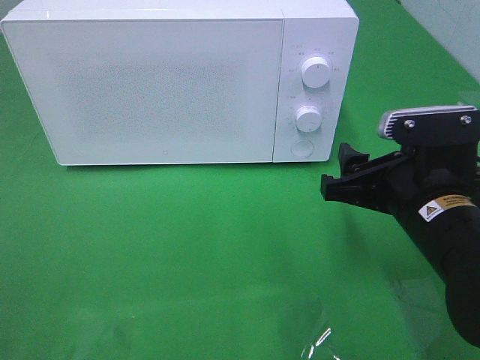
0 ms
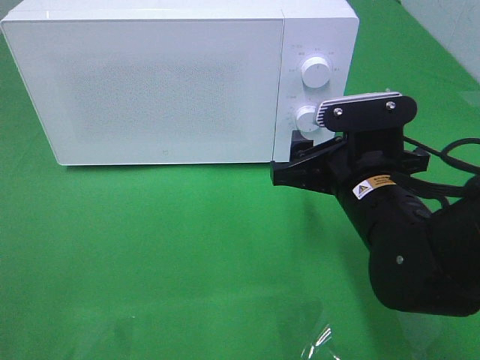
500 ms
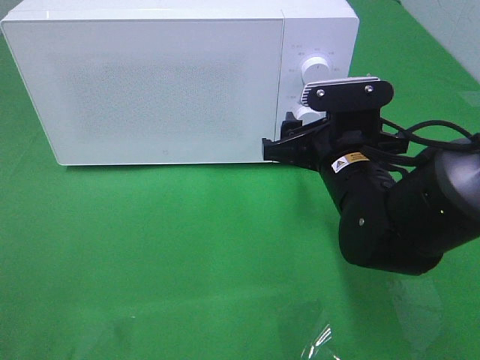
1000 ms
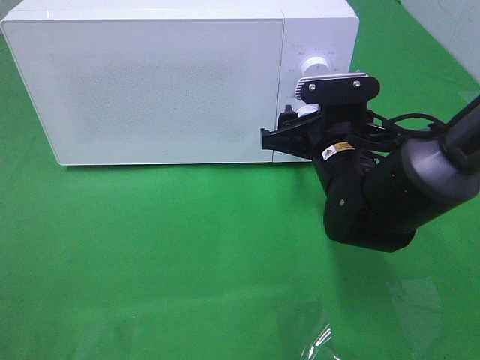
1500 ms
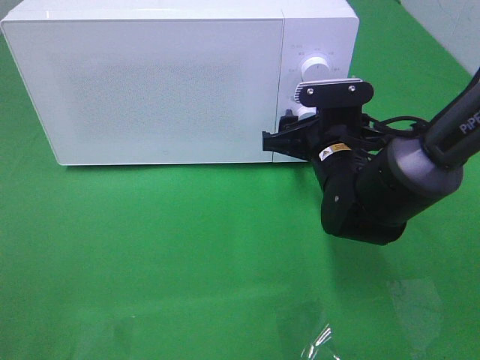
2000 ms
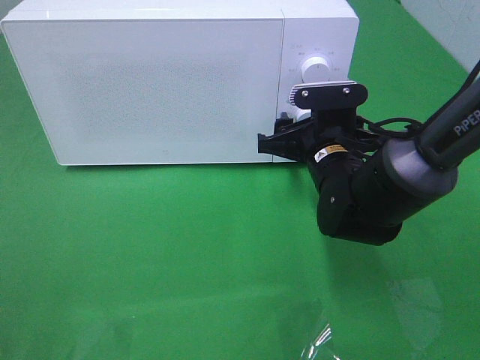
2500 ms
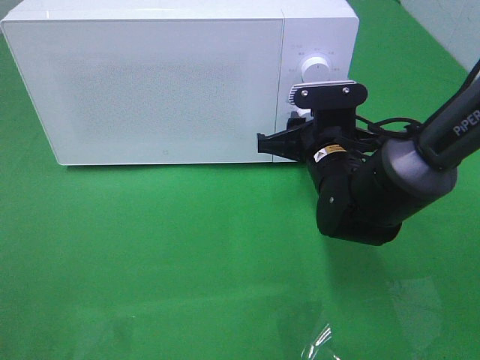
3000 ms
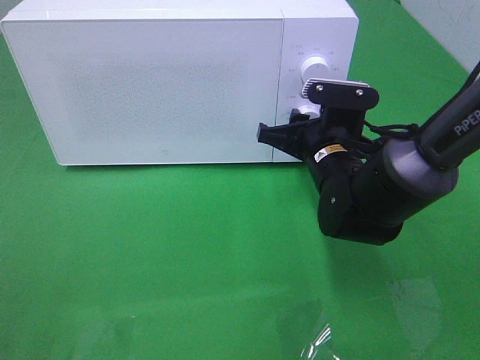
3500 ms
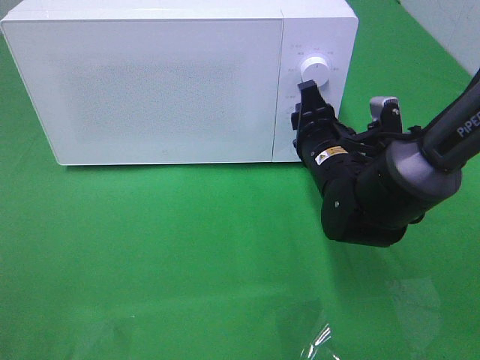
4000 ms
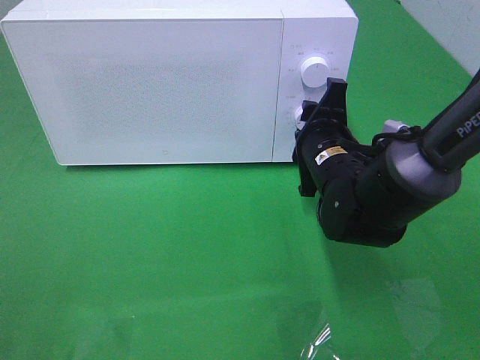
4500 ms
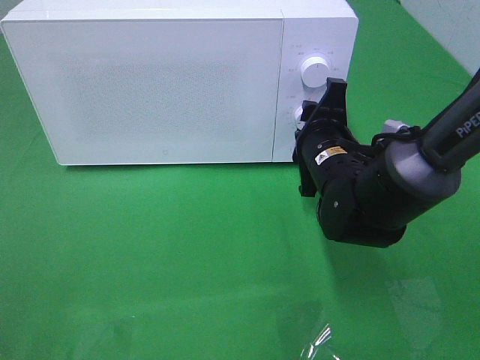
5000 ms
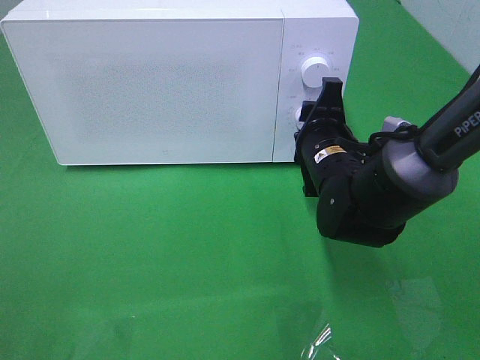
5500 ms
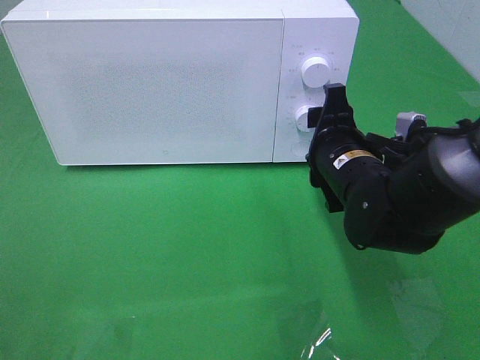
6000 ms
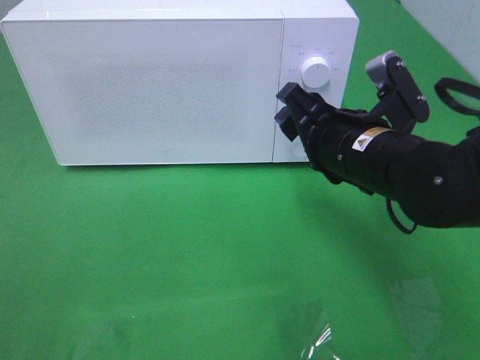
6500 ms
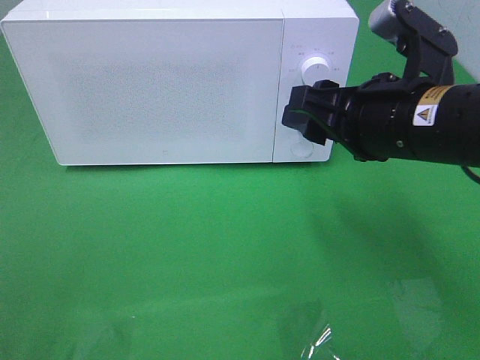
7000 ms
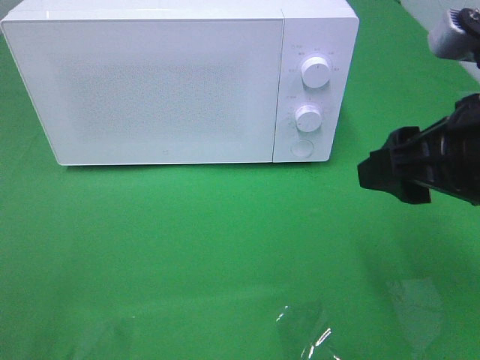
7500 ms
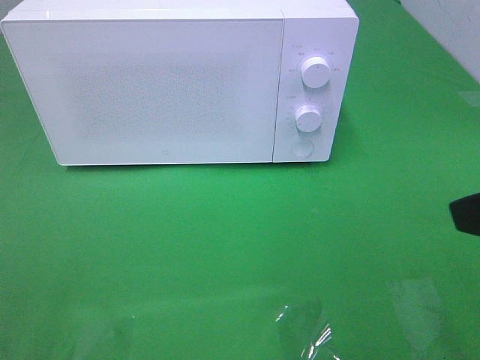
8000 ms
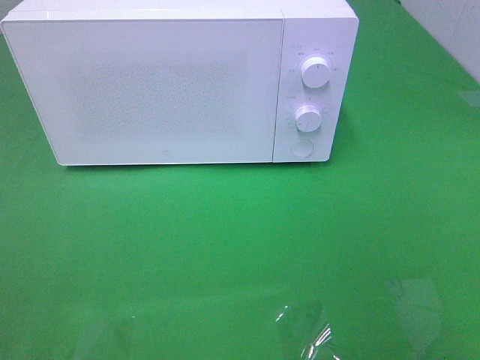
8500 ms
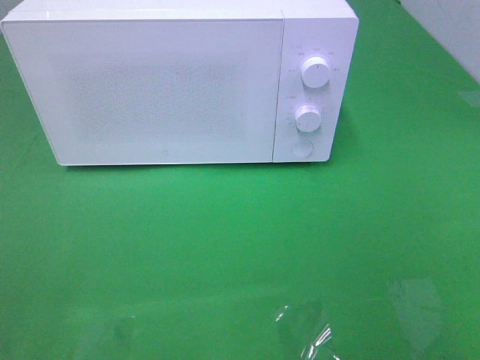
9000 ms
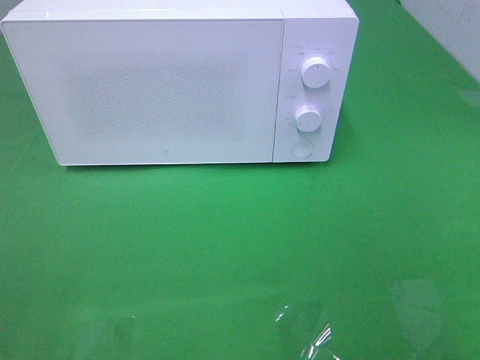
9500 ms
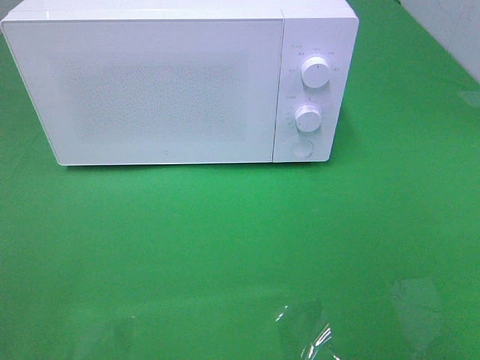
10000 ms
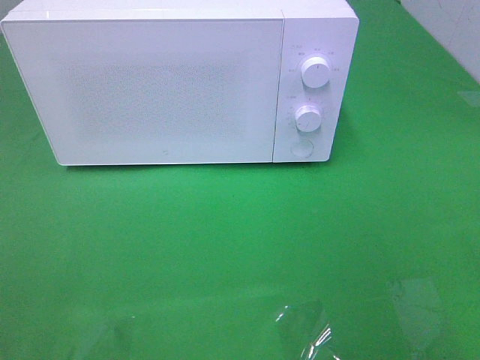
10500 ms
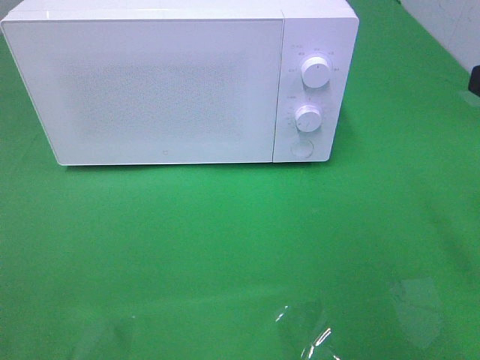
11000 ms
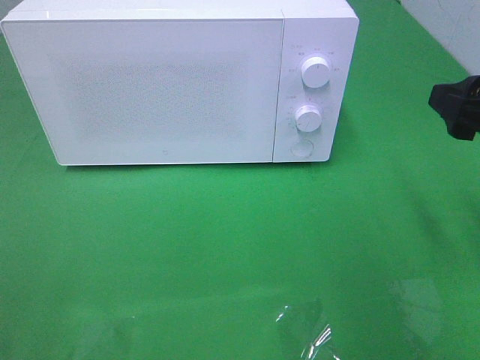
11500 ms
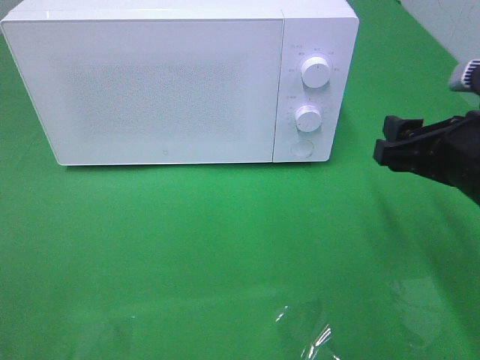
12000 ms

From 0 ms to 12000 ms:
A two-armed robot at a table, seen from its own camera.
Task of the whole recording: Heat the burger.
Step, from 0 ms to 6000 ms: Right hand: twist timer button.
From 0 ms to 2000 ms: The right gripper moves forward and to the left, roughly 15 cm.
From 6000 ms to 8000 ms: The right gripper goes some 25 cm backward, upward and to the right.
From 10000 ms to 12000 ms: The right gripper is displaced forward and downward by about 25 cm.

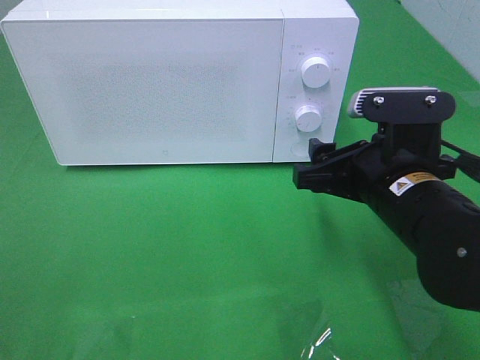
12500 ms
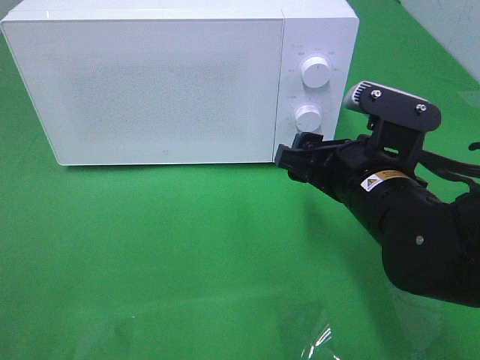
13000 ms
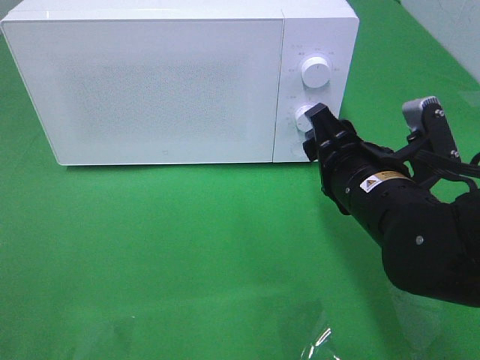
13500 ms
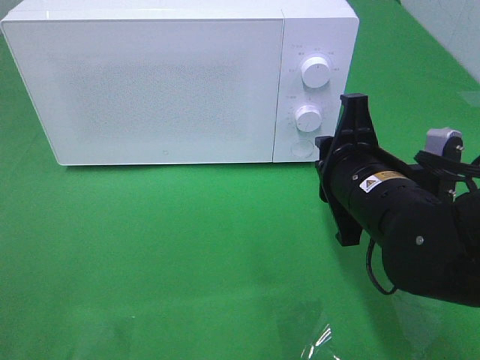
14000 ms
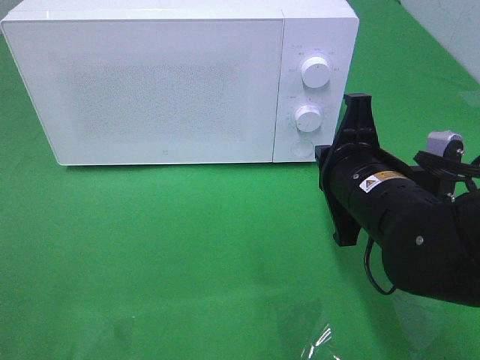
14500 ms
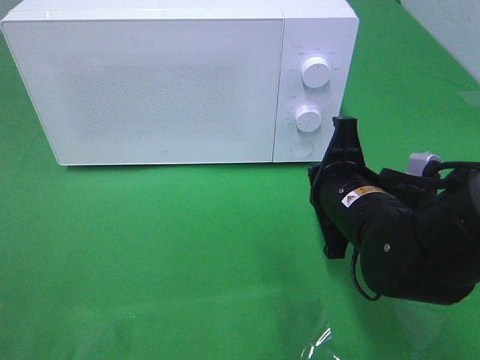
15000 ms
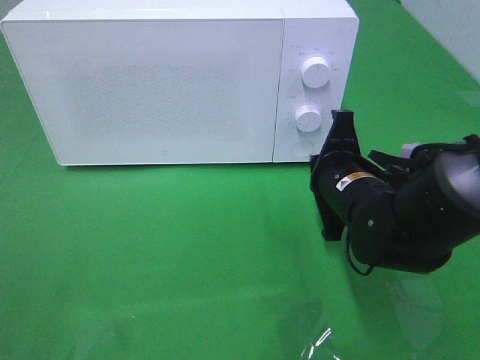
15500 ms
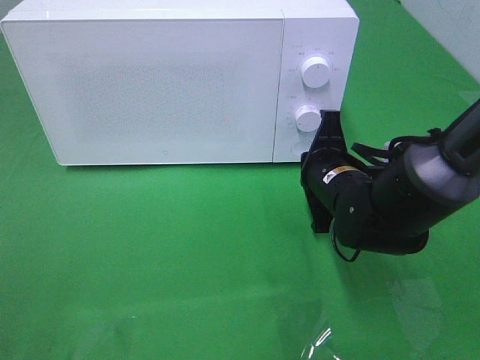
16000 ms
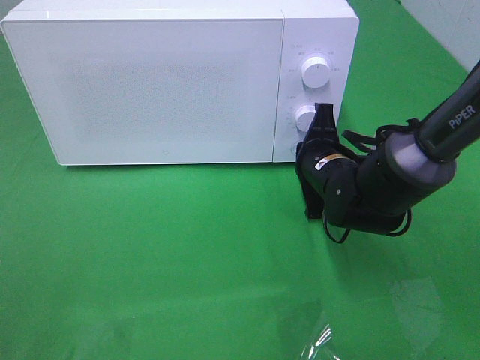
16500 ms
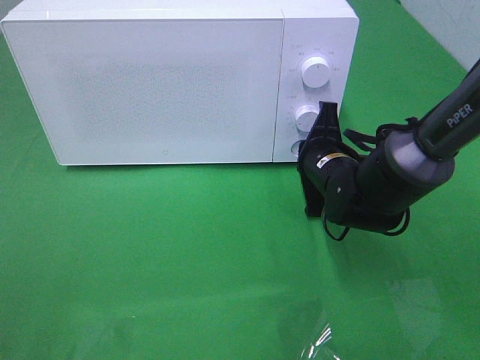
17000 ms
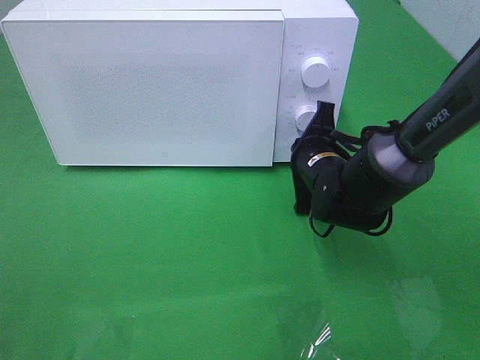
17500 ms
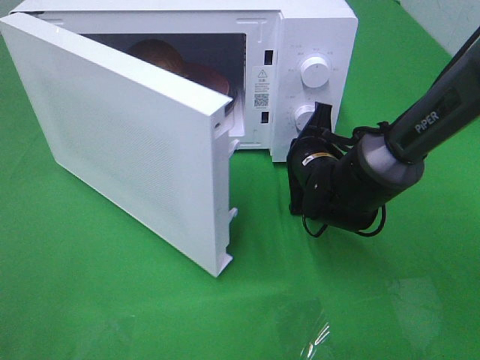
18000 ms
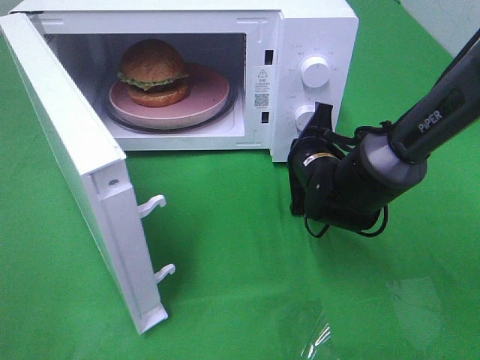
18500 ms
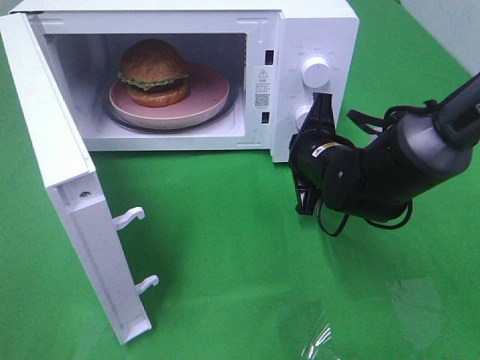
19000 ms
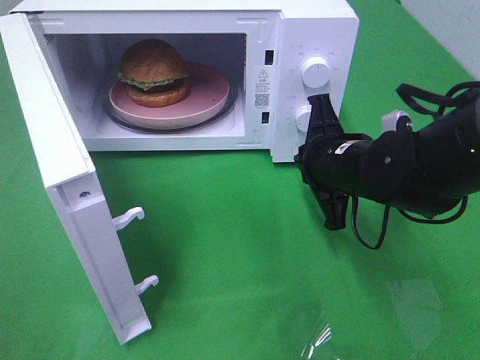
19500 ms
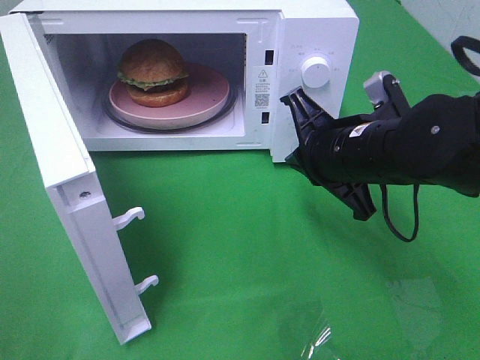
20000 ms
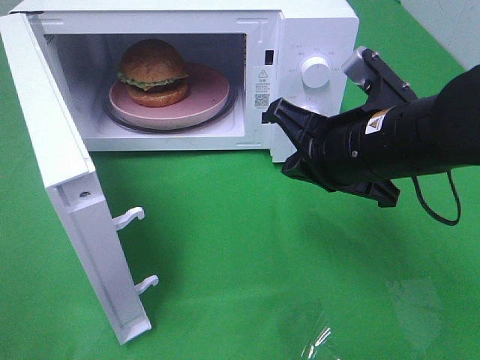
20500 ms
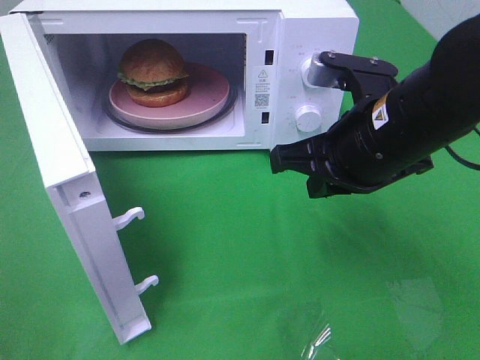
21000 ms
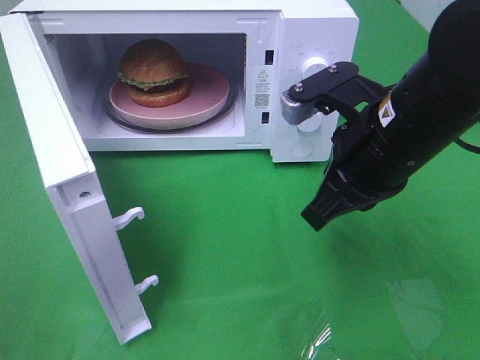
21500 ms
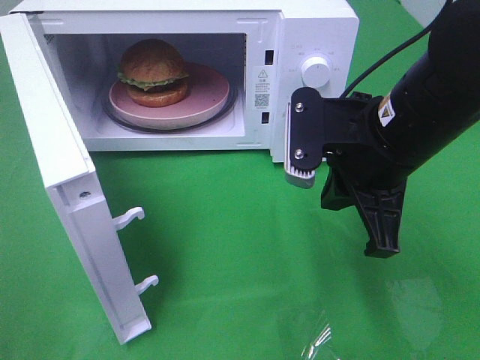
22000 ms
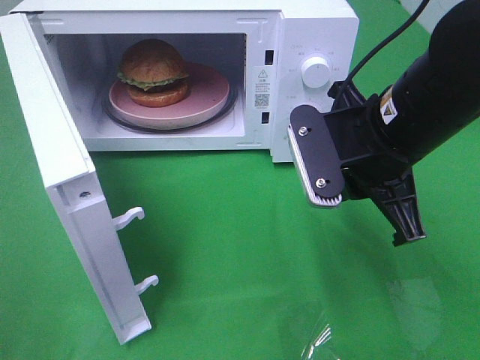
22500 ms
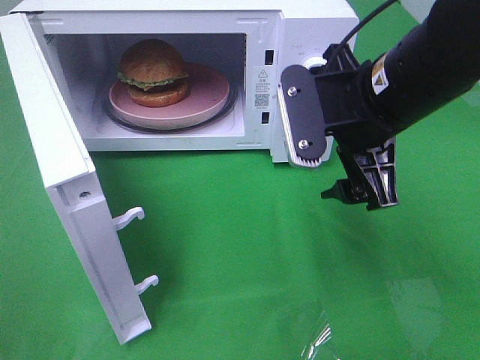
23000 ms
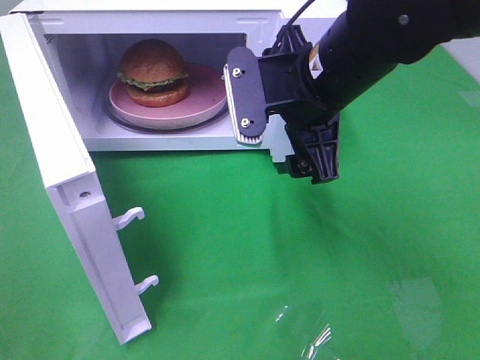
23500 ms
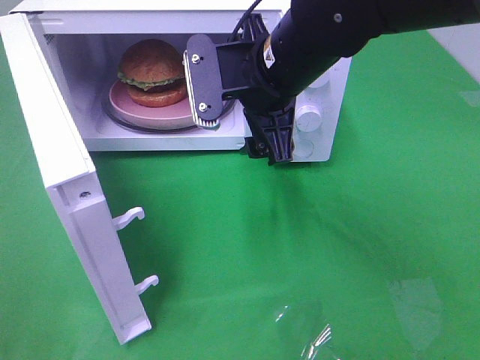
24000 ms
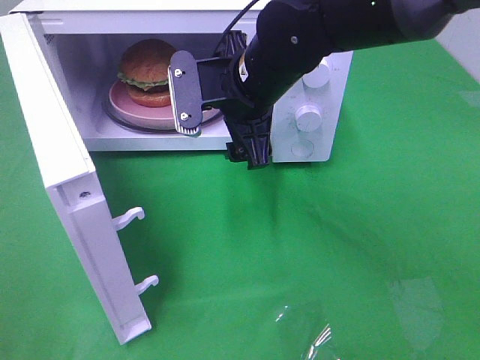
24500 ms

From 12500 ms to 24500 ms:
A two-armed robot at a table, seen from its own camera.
Task of the whole recording: Heat the burger.
Step, from 12500 ms to 19000 ms: Right hand: press the switch.
From 12500 ms to 14500 ms: The right gripper closes its fingers.
From 14500 ms to 16500 ms: The right gripper shifts roughly 15 cm forward and downward.
From 18500 ms to 20500 ms: The right gripper heads upward and backward, covering approximately 15 cm.
From 22500 ms to 24500 ms: The right gripper goes about 15 cm to the left and forward, and opens its fingers.

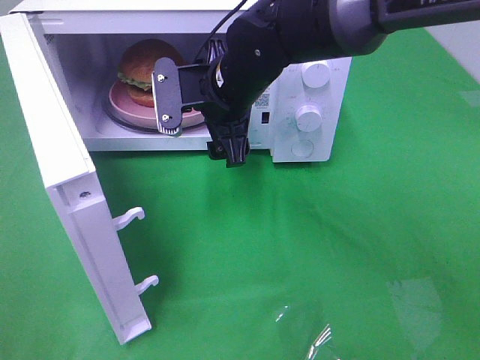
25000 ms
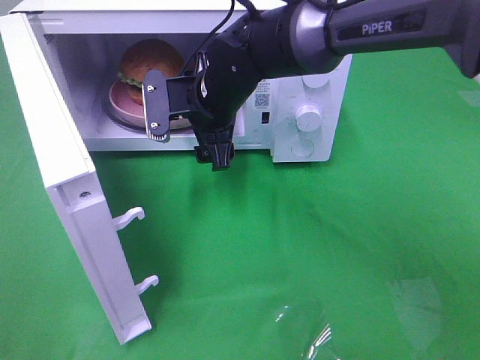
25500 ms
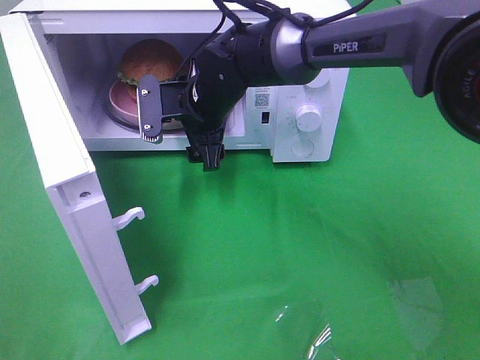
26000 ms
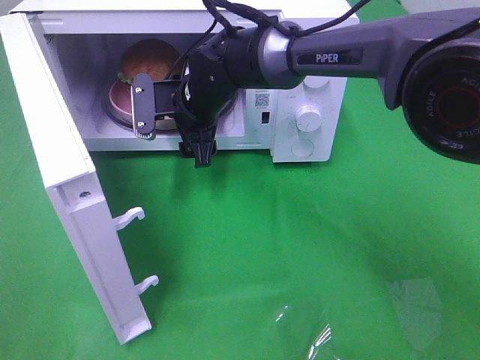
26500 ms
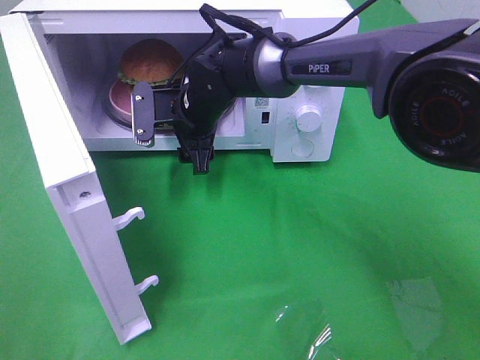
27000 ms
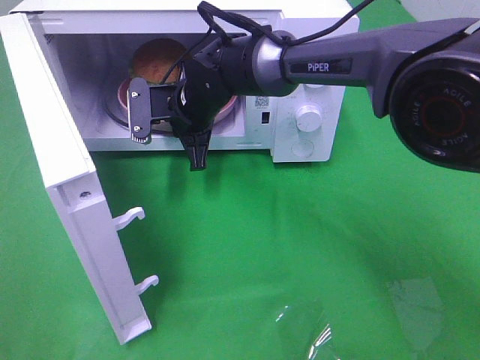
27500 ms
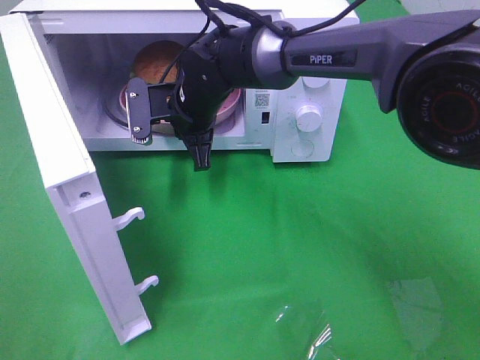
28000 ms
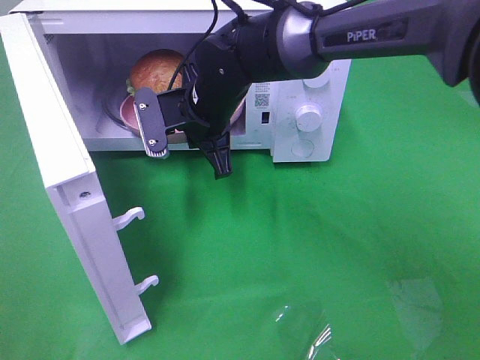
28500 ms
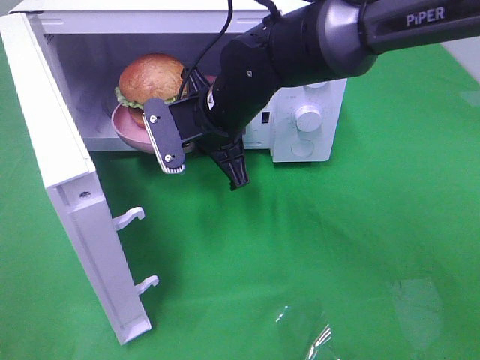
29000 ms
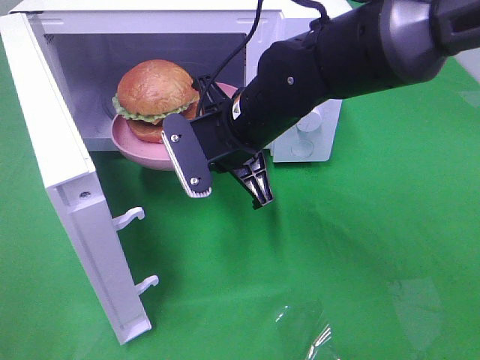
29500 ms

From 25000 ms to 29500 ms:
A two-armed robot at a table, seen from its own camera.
Task of the whole recording: Heat the burger.
Step, from 25000 ms to 27500 ms: Right hand: grab the plate with the hamburger.
From 25000 ms to 27000 ms: The right gripper travels downward and forward by roughly 10 cm.
From 27000 ms to 29500 ms: The right gripper moves backward, to the right and upward, approximately 15 cm, and closes.
